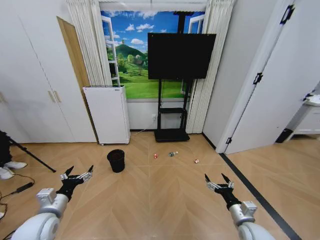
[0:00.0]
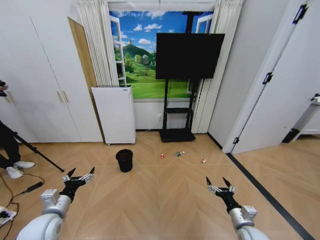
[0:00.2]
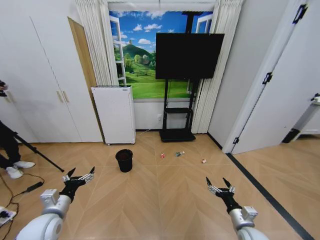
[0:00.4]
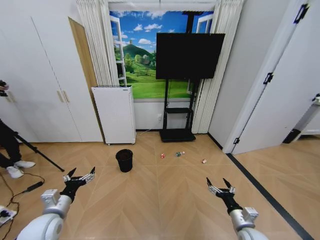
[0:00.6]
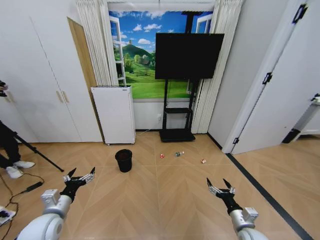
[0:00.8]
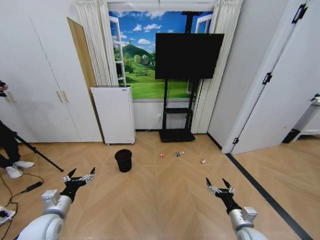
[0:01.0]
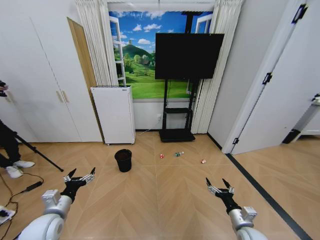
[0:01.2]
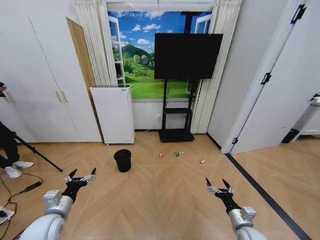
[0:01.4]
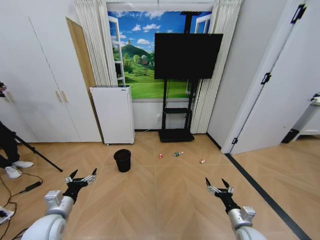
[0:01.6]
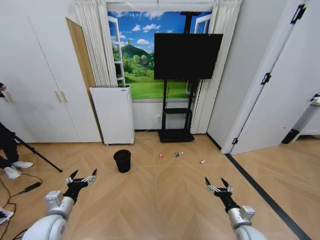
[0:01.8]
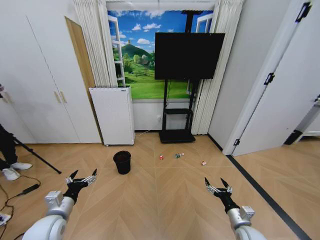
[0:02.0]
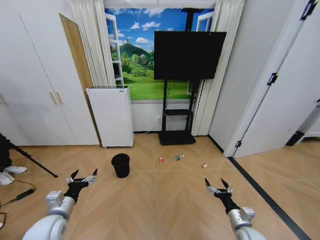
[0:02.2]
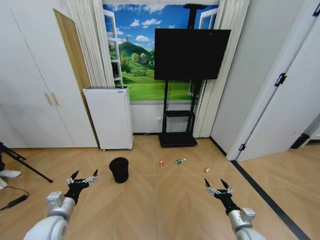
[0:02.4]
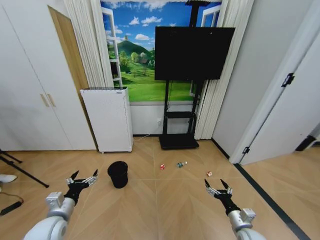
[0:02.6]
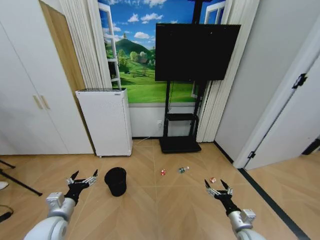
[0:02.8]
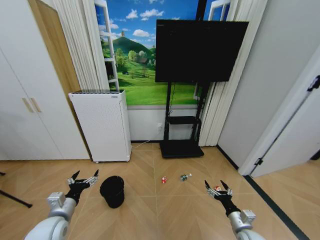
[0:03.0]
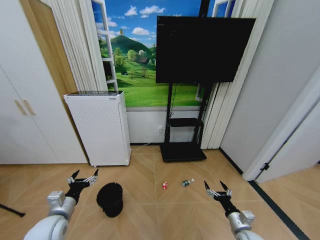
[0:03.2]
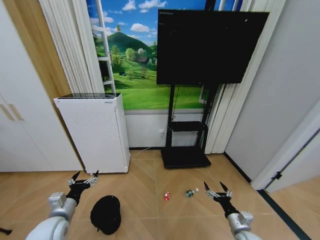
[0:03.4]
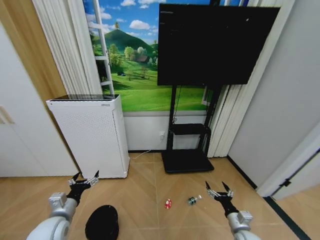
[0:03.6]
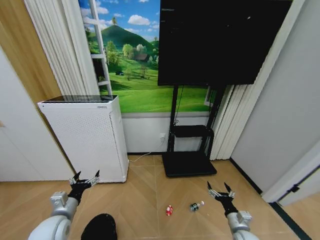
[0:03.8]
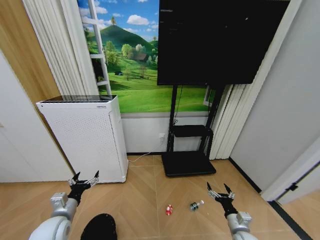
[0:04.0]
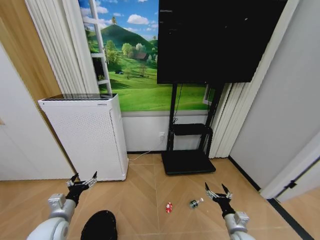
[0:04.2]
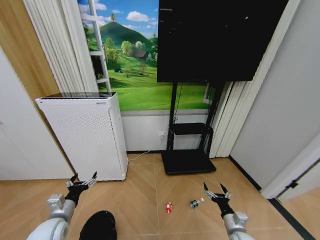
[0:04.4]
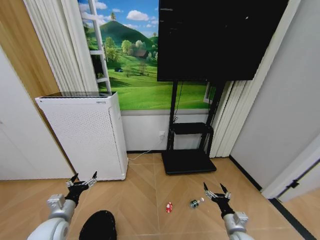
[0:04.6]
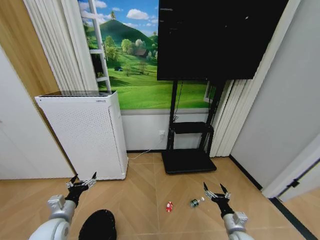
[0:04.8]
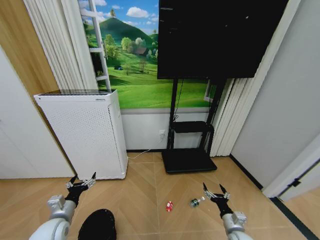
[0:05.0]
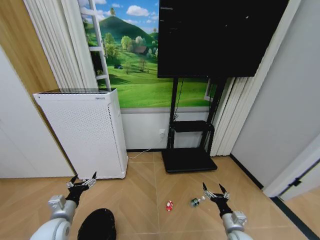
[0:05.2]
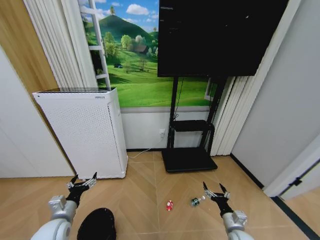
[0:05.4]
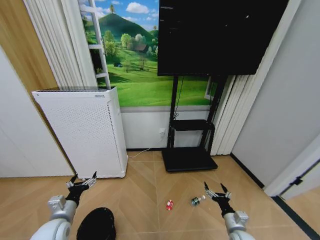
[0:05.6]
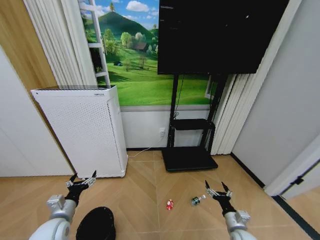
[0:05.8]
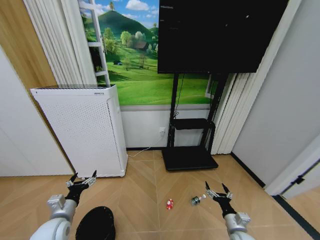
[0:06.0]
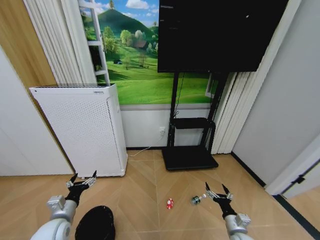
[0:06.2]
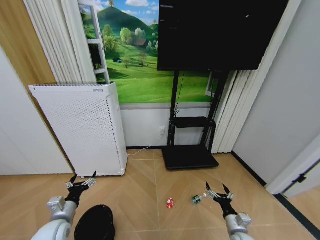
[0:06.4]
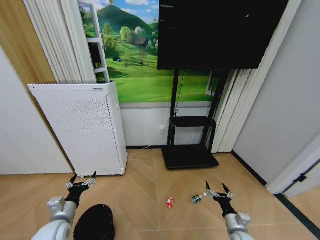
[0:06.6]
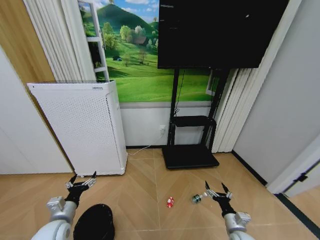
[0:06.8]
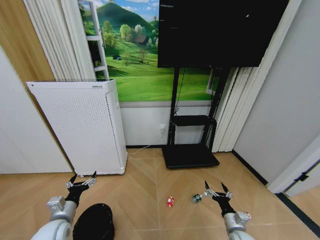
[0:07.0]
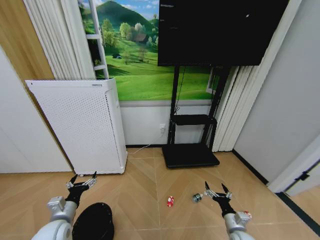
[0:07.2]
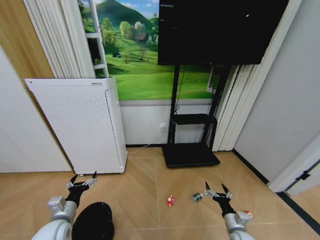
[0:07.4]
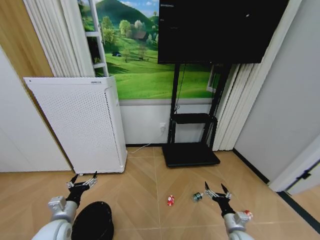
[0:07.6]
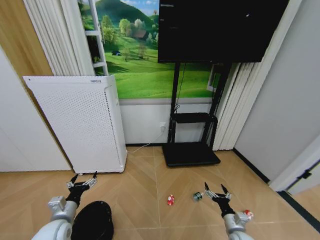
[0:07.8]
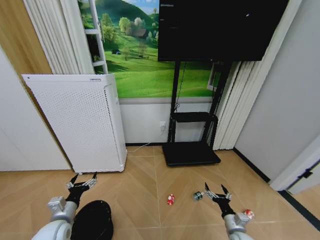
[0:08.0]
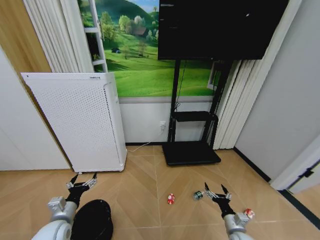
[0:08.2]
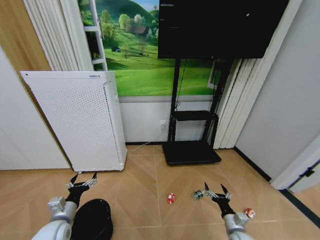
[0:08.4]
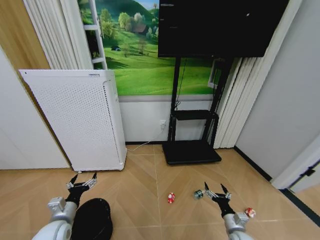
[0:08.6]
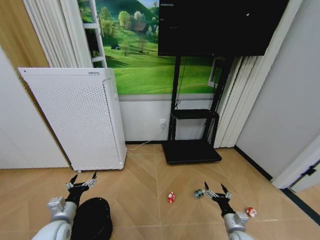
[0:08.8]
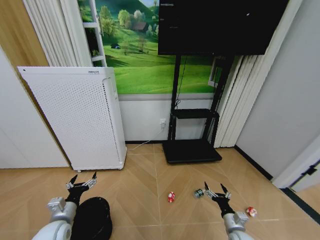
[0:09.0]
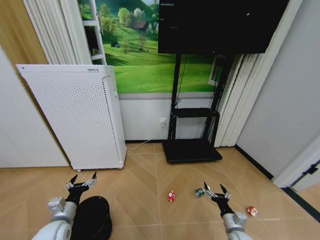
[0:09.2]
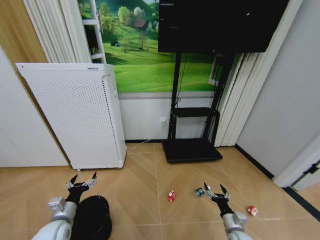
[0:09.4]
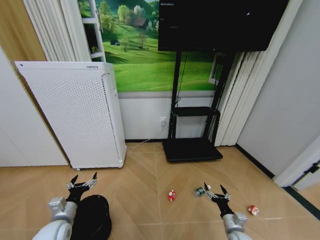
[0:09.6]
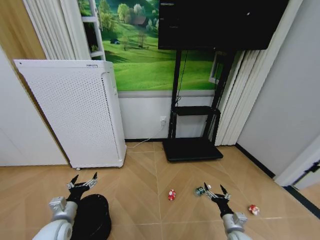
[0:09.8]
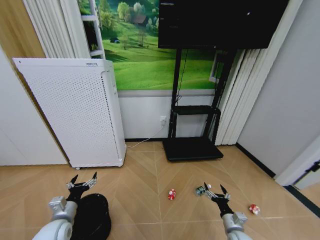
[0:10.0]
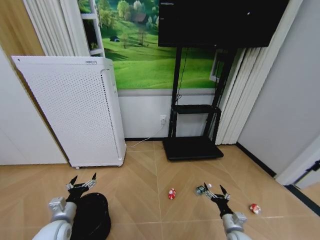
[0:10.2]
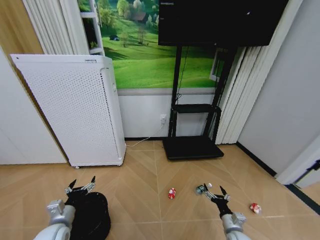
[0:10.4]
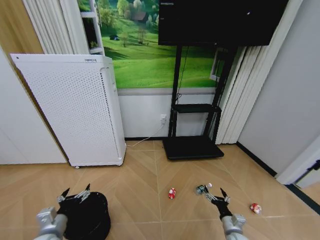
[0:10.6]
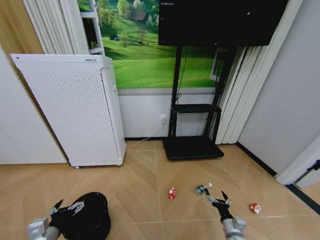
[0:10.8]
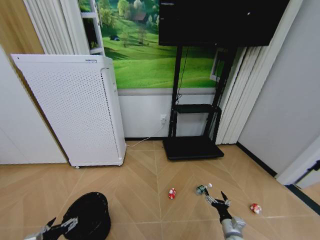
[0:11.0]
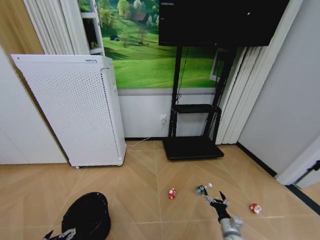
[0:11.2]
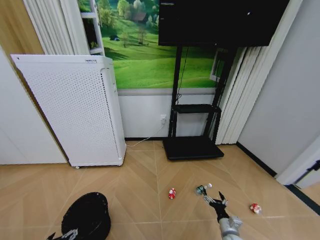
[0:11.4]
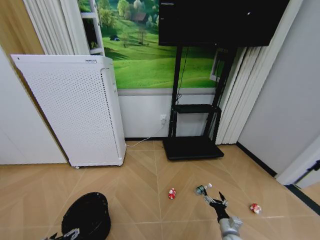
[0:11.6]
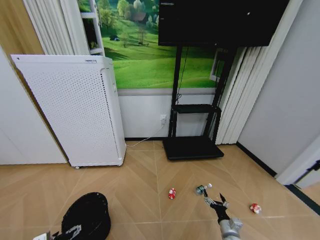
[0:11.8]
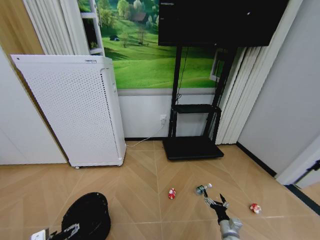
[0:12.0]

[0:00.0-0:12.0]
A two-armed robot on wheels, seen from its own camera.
Task of the whole recording: Pick up the trash bin and place the garbage on the floor into it.
0:04.4 to 0:06.0: Both grippers stay about where they are.
0:06.0 to 0:09.0: Both grippers stay about where they are.
0:09.0 to 0:10.4: The grippers stay close to where they were, moving slightly.
0:10.4 to 0:12.0: The left gripper travels backward by roughly 5 cm.

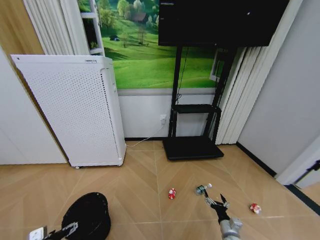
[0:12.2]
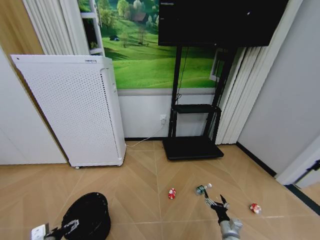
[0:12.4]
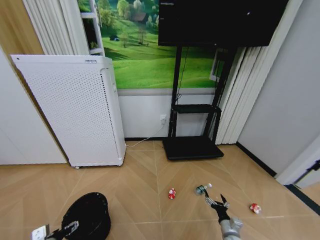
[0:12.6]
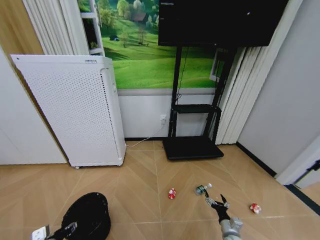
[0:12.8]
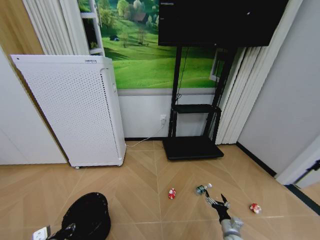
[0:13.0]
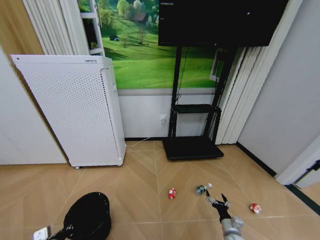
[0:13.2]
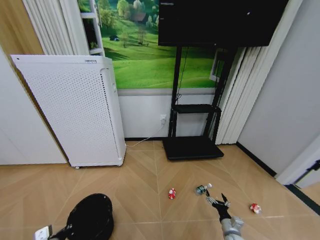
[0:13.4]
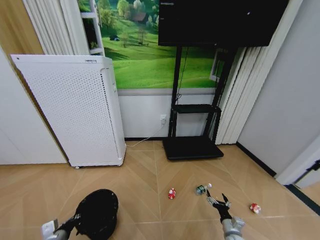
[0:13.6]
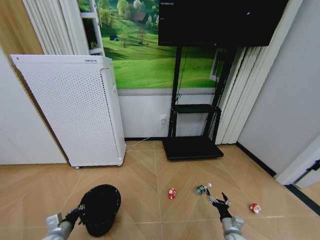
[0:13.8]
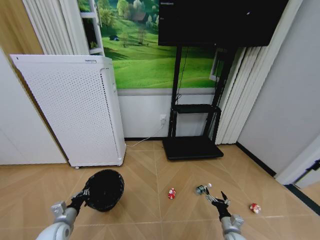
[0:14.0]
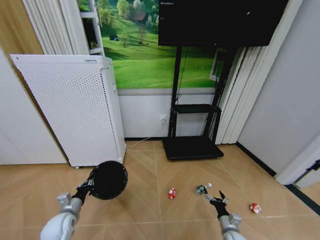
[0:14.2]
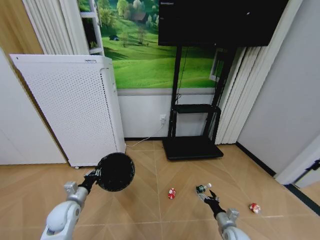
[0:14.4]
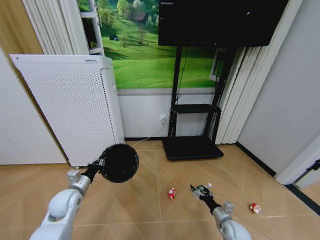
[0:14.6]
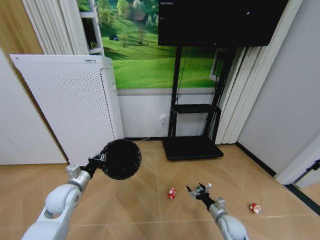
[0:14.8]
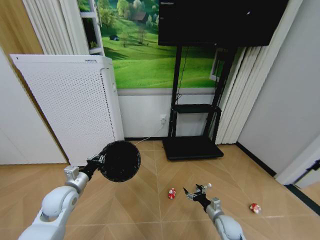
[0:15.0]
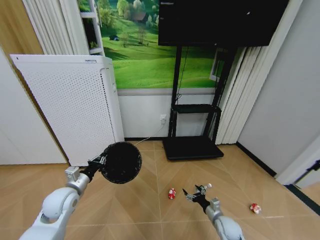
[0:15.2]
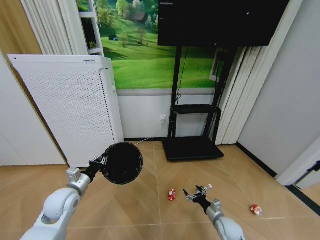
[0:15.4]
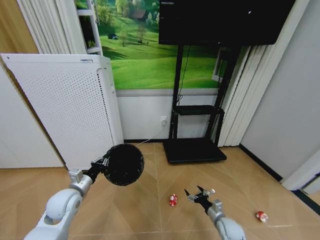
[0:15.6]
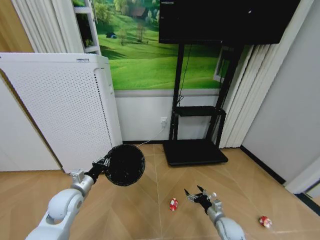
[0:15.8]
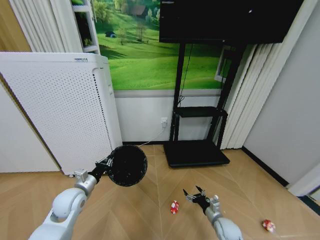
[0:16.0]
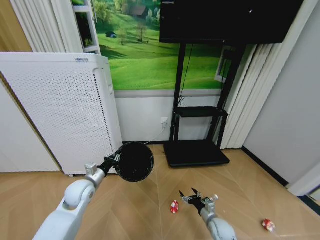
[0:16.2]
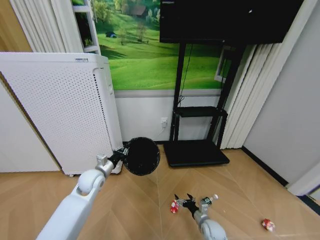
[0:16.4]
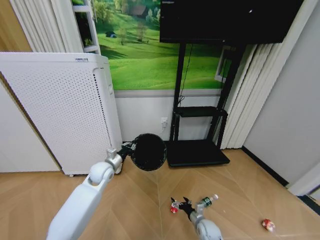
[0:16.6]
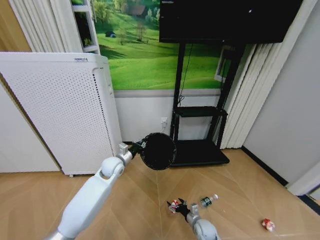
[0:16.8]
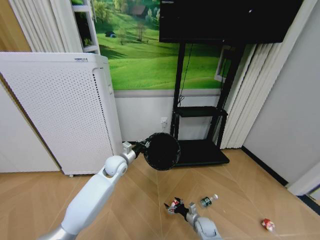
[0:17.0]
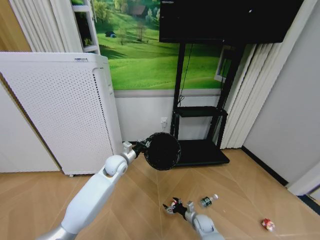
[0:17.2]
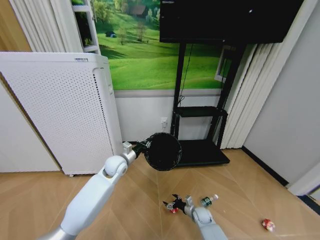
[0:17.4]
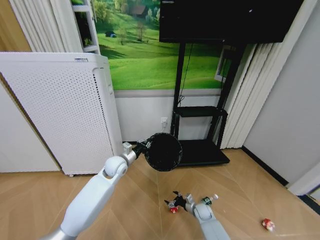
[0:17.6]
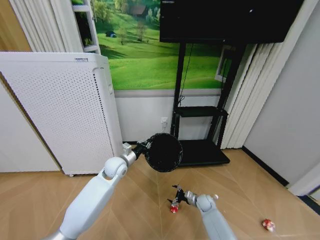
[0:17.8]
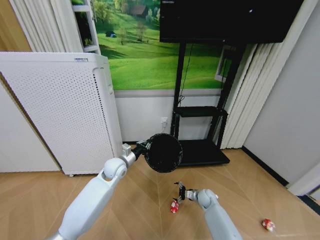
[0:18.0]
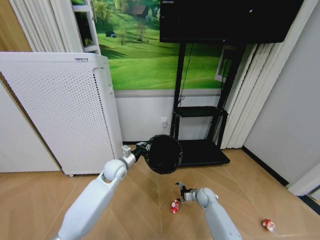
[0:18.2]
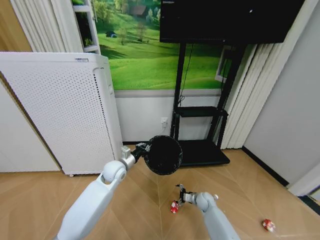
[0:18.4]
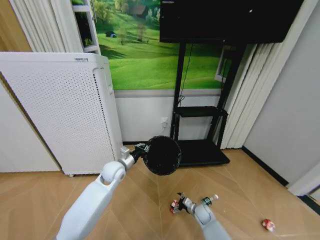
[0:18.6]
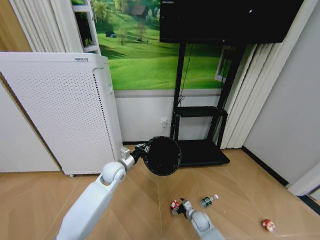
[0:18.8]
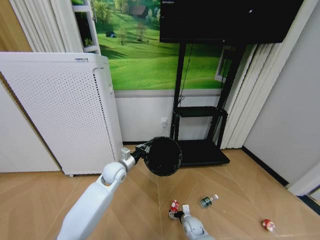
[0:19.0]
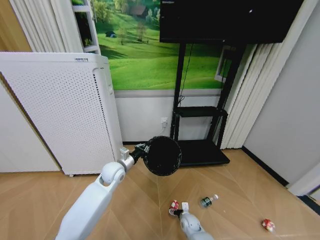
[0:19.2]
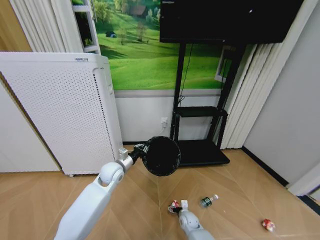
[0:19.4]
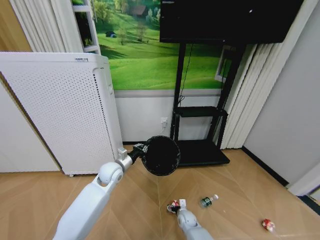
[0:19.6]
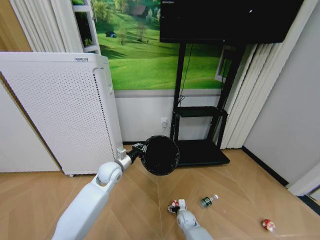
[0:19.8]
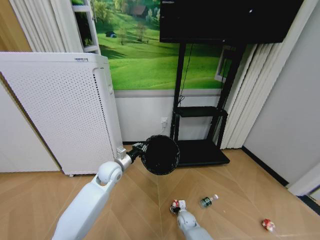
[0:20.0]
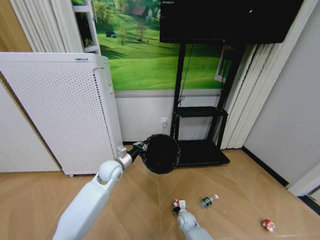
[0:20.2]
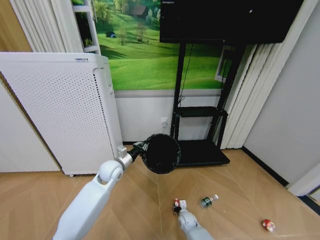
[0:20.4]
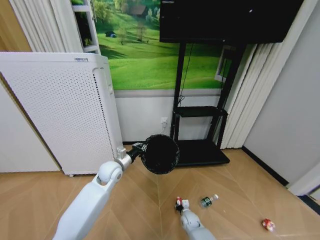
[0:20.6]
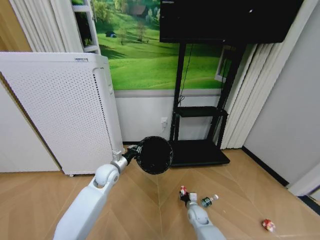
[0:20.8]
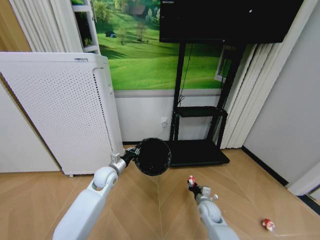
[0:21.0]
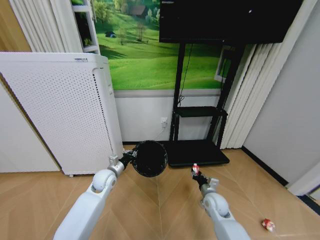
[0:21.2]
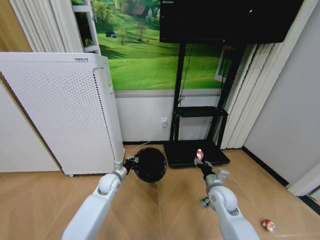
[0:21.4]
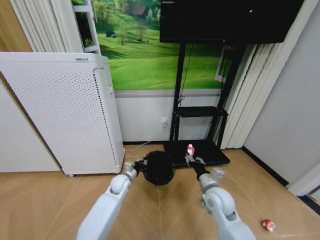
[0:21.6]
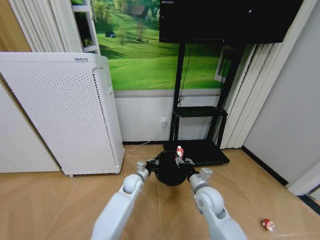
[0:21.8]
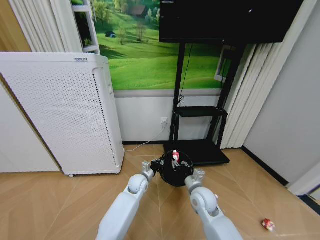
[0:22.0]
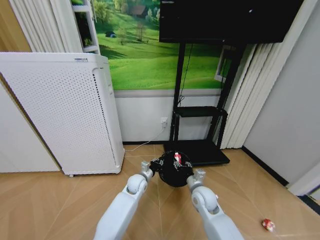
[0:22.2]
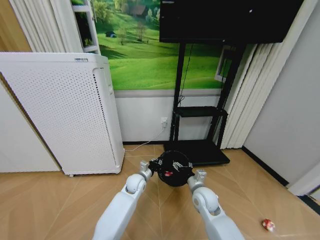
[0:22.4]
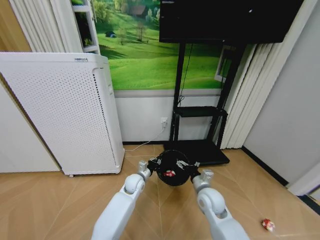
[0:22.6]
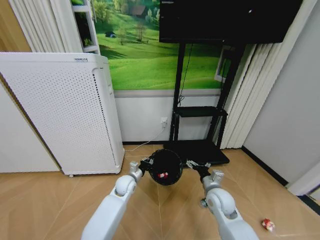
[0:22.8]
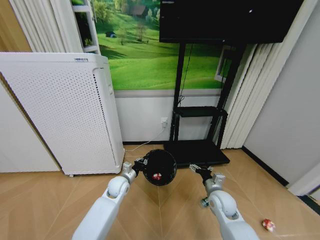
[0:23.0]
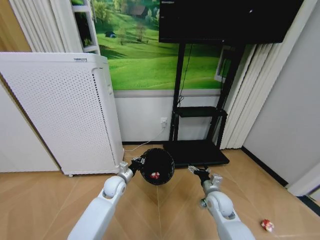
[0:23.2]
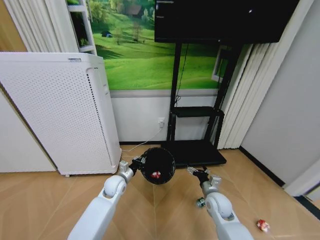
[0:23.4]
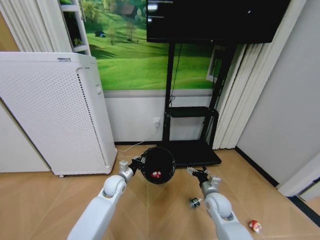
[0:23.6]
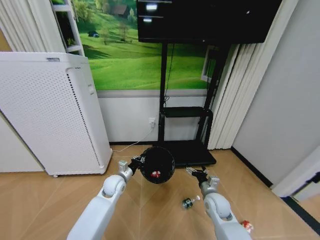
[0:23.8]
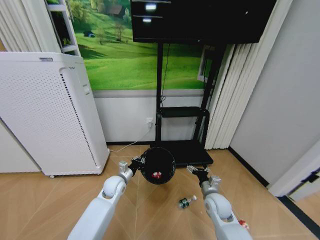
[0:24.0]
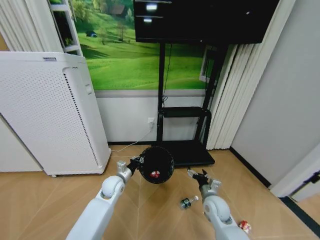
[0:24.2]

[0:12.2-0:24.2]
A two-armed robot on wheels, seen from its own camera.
Task of the whole recording: Pick up the trash bin and place the garbage on the floor into it.
0:12.2 to 0:13.8: The left gripper shifts by approximately 5 cm, and closes up.
0:13.8 to 0:15.2: The right gripper goes some 5 cm forward. The left gripper is displaced upward and forward by approximately 20 cm.
0:15.2 to 0:16.6: The right gripper shifts about 10 cm to the left. The left gripper travels forward and to the right by about 15 cm.
0:16.6 to 0:18.2: The right gripper shifts some 15 cm forward.
0:18.2 to 0:19.8: The right gripper moves to the left, backward and downward, about 15 cm.
0:19.8 to 0:21.2: The right gripper shifts approximately 25 cm upward and to the right, and closes. Meanwhile the left gripper goes roughly 5 cm downward.
0:21.2 to 0:22.6: The left gripper moves to the right and downward, about 15 cm, while the right gripper moves upward and to the left, about 10 cm, and opens its fingers.
0:22.6 to 0:24.2: The left gripper heads to the left, covering some 10 cm. Meanwhile the right gripper is displaced downward by approximately 5 cm.
